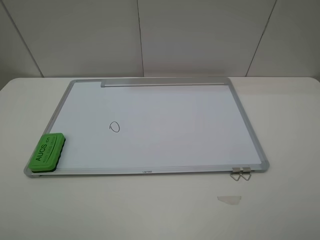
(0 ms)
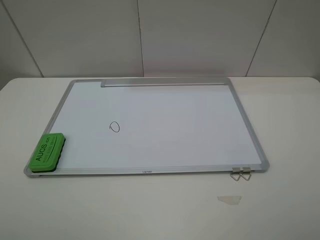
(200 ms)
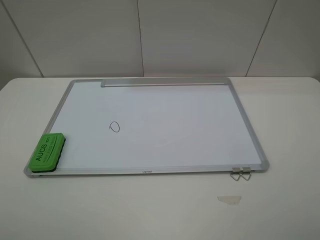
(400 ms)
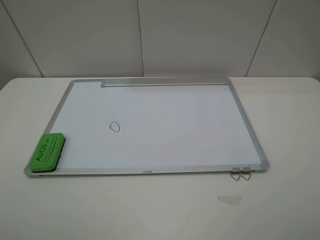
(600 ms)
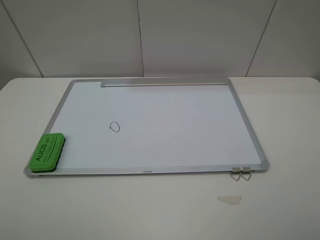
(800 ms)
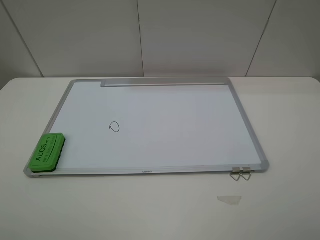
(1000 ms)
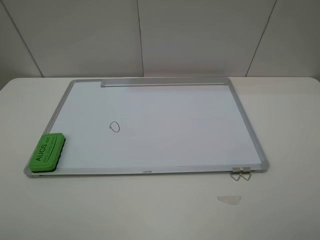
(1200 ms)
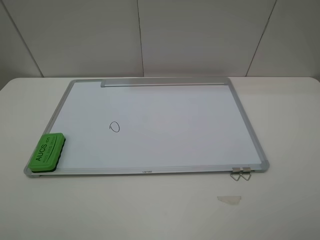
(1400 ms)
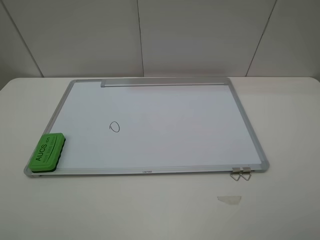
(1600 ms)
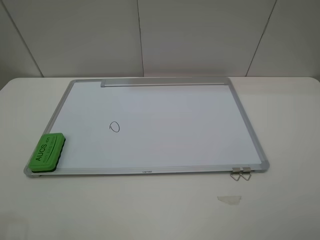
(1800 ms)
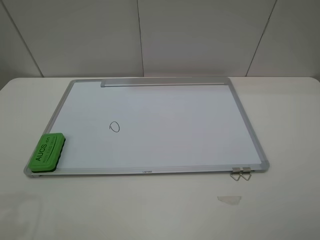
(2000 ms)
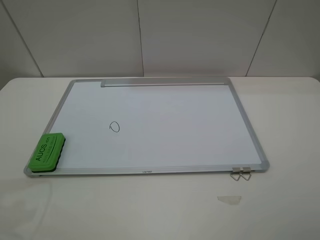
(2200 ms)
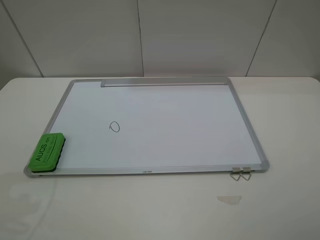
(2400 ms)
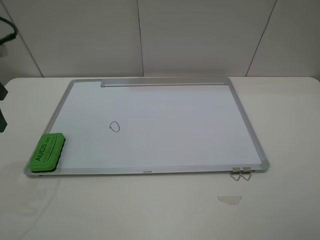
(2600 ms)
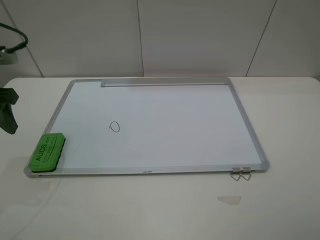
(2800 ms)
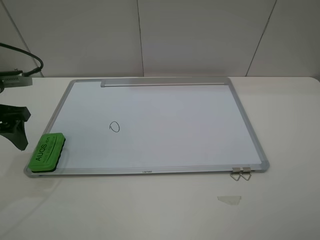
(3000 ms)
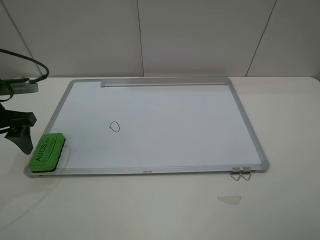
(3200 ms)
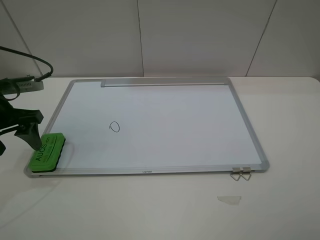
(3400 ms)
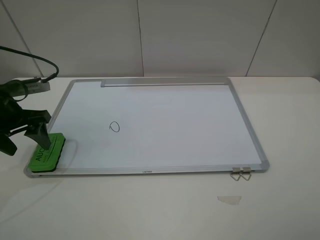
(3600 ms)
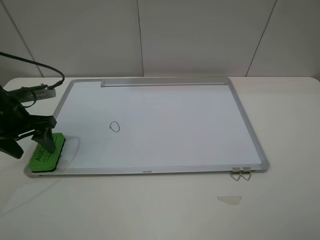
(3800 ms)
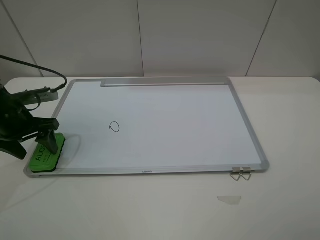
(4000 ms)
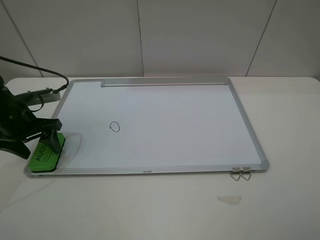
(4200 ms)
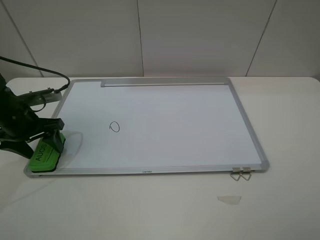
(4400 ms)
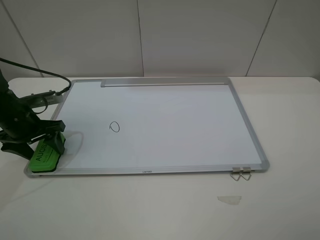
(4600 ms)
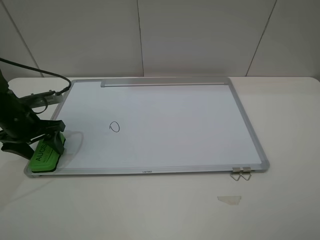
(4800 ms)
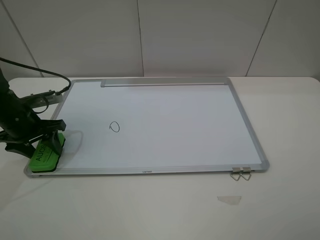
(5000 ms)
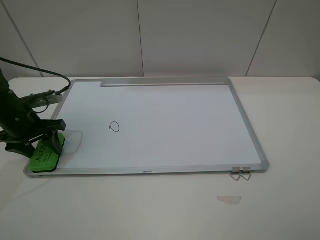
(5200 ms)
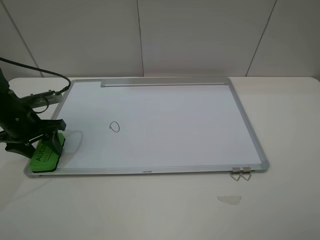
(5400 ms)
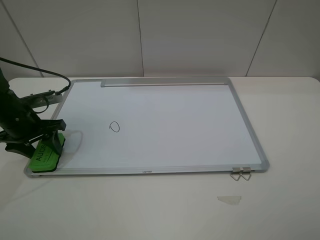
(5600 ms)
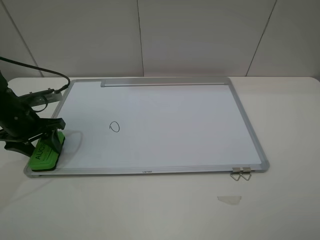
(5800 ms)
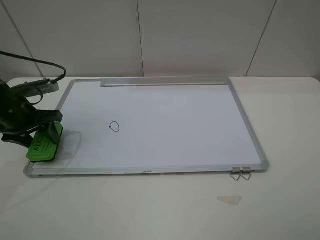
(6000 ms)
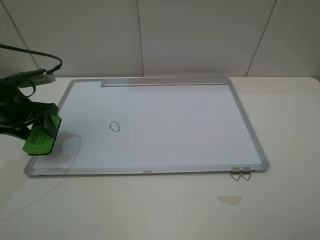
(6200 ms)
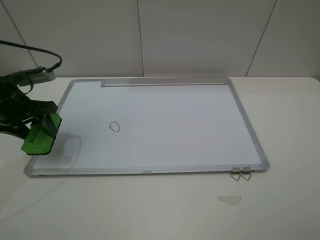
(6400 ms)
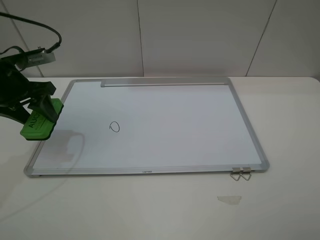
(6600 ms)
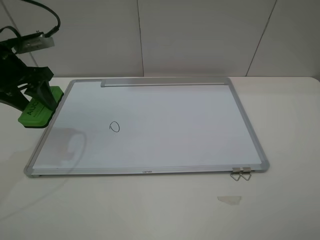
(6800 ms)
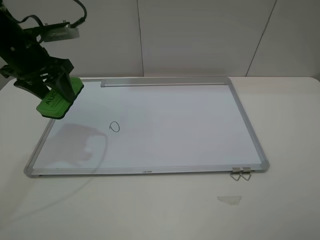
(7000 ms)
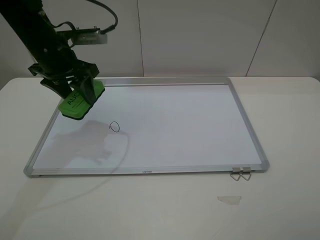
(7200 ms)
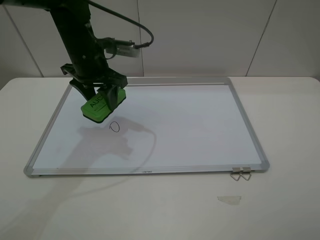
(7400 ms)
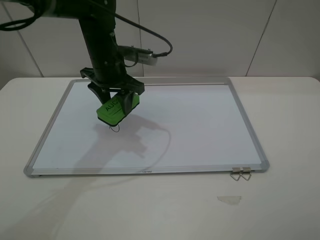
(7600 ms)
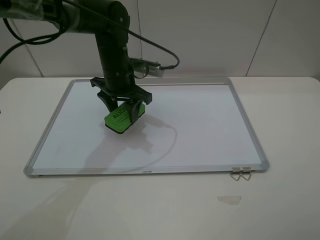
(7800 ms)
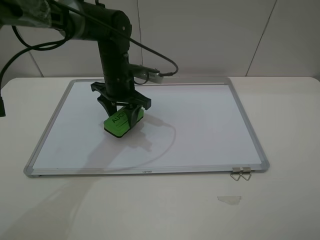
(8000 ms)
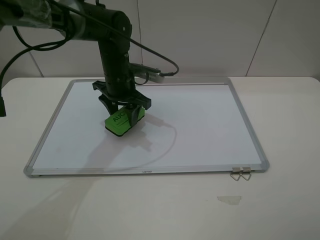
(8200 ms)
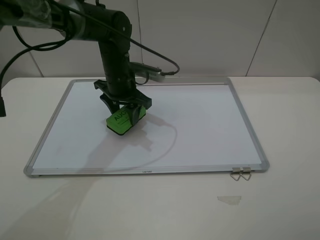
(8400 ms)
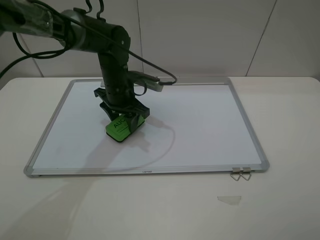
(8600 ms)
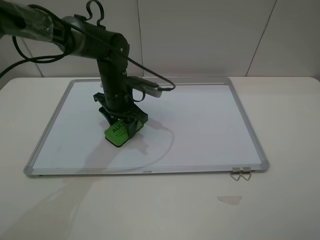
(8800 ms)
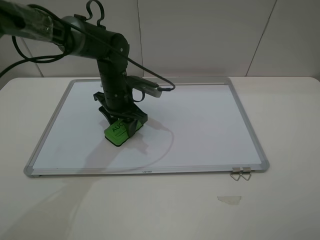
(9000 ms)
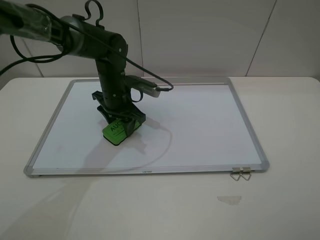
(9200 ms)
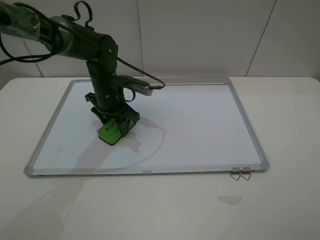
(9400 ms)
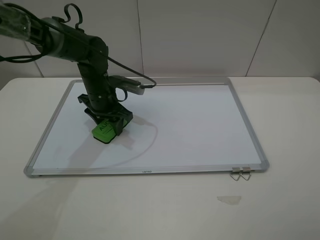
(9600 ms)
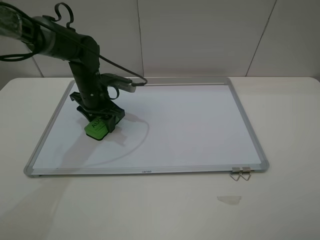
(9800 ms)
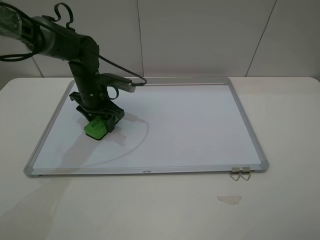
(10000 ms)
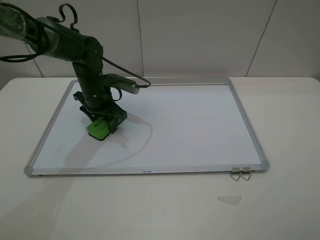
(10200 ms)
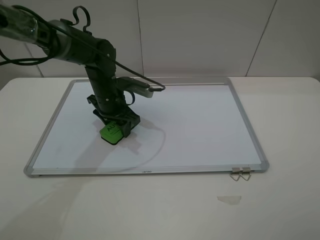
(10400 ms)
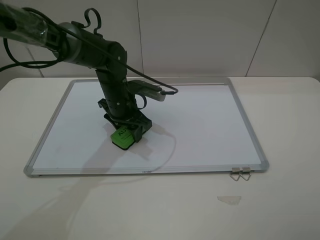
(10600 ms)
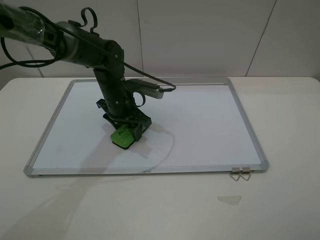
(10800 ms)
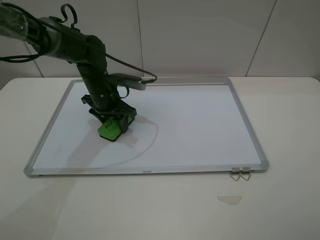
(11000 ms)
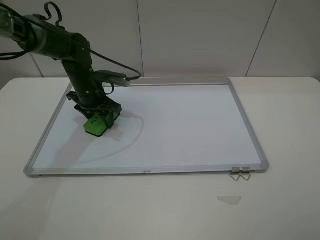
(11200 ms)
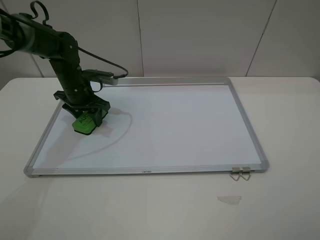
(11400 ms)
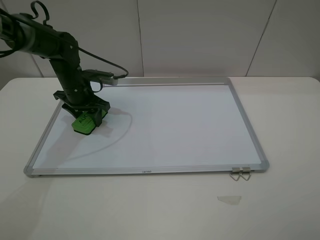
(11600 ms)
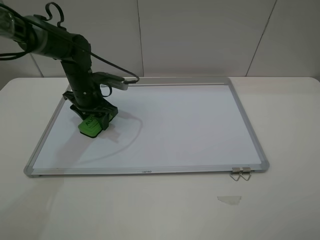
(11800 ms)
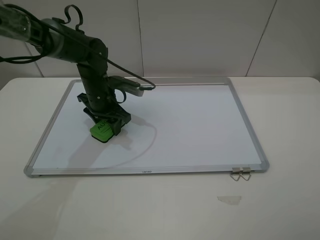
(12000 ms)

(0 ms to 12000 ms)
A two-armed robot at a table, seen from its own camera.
Step, 0 ms - 5000 ms: Grasp the eraser with the left gripper.
1600 ms - 3000 ms: The left gripper goes roughly 25 cm forward and downward, and opens its fingers.
3000 ms - 4400 ms: The left gripper heads downward, covering some 10 cm.
4400 ms - 6000 ms: The left gripper closes its fingers.
6000 ms - 7600 ms: The left gripper goes roughly 20 cm to the right.
7600 ms - 9000 ms: The left gripper travels downward by approximately 10 cm.
10400 ms - 12000 ms: The left gripper travels to the left and back again, approximately 10 cm each way.

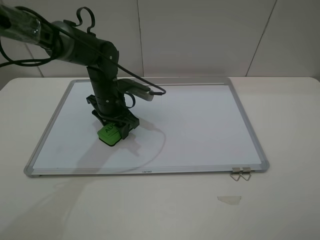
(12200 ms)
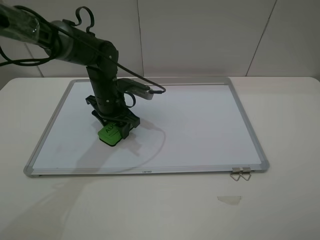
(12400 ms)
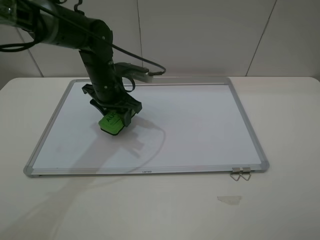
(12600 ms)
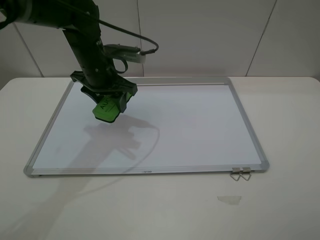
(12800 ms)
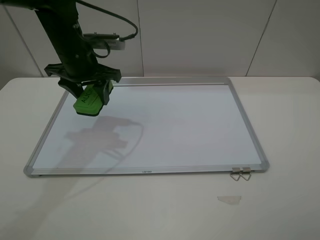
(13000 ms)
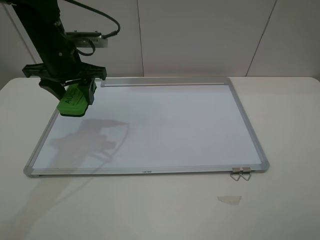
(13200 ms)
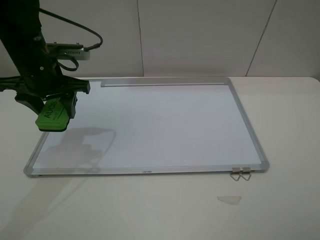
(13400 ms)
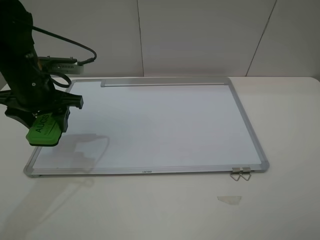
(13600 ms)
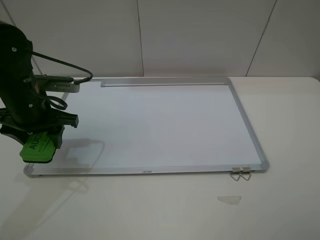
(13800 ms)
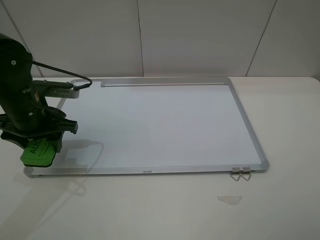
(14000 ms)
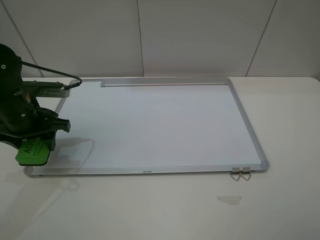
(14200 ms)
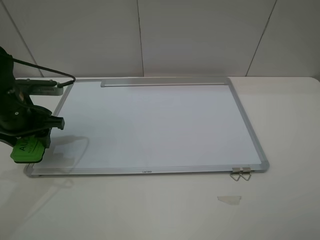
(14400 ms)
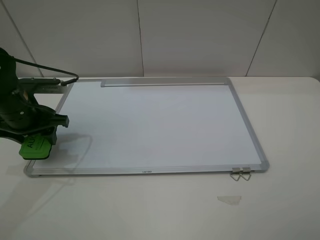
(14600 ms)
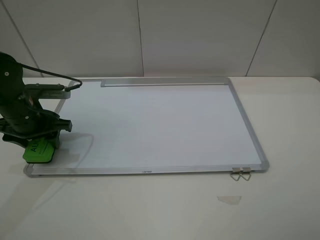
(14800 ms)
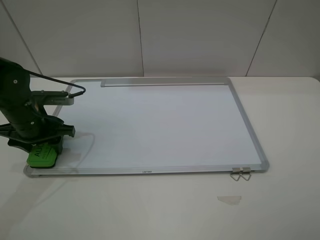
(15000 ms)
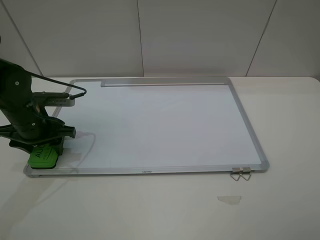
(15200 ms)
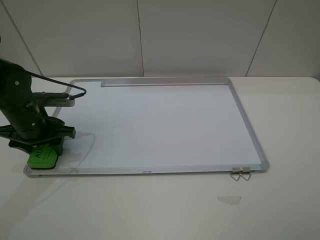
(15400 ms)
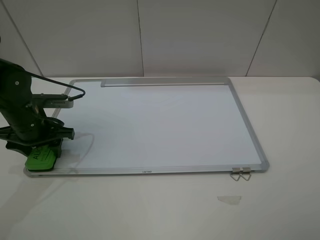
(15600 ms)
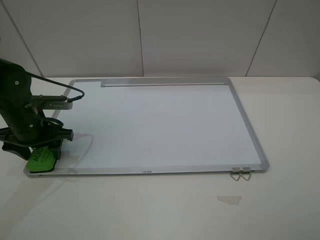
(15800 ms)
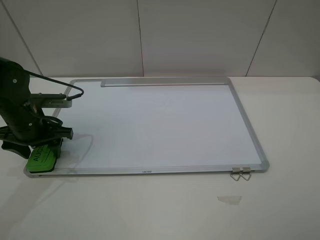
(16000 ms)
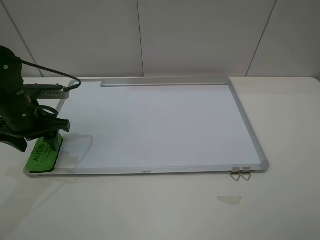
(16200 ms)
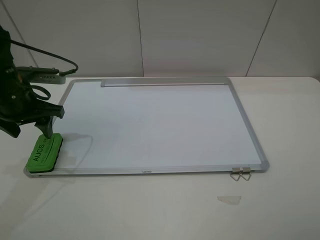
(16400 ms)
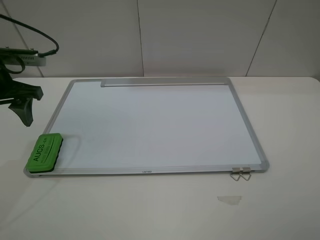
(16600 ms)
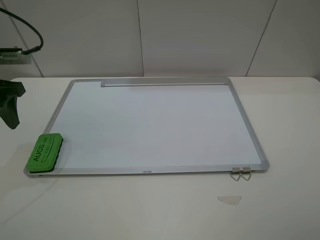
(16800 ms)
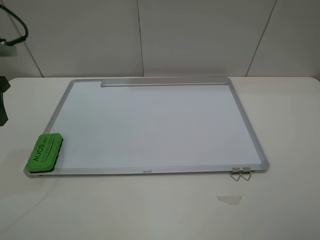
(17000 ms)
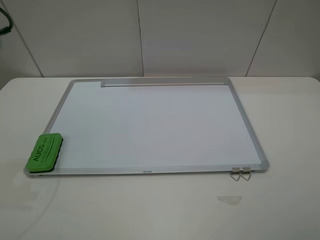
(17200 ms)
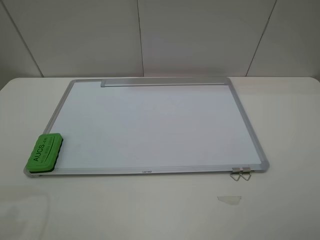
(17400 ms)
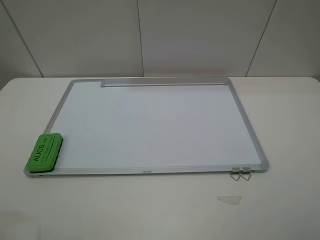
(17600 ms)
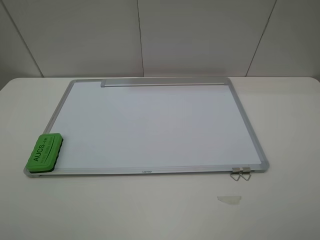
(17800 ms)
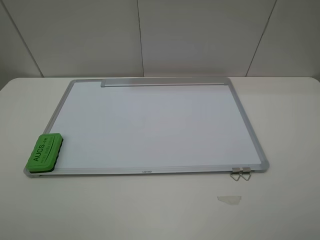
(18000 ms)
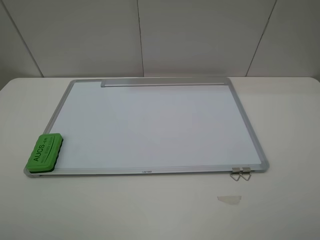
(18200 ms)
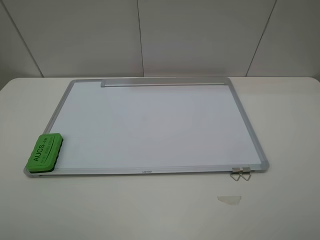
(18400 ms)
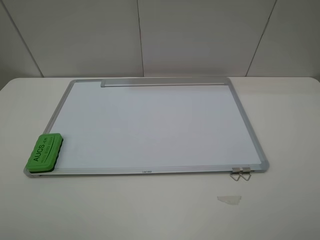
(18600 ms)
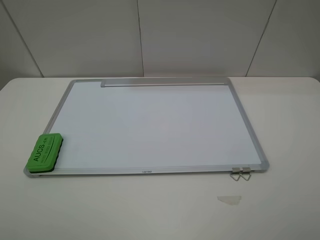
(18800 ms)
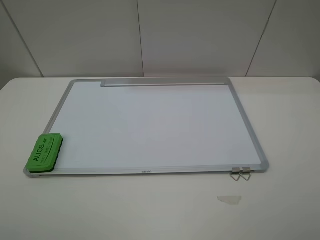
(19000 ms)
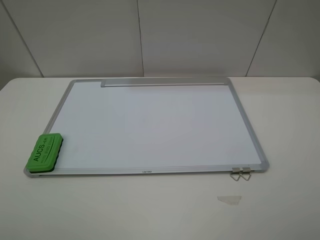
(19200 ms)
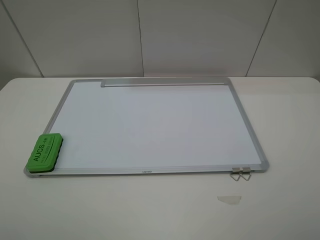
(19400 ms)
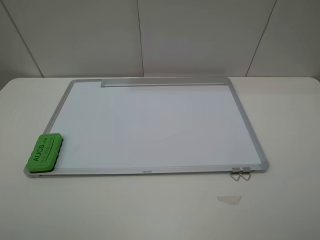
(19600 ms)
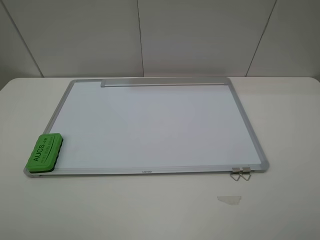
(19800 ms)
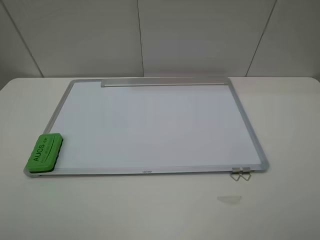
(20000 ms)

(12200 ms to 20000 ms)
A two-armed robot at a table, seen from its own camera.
Step, 12400 ms - 16000 ms: Place the eraser with the left gripper.
12200 ms - 13800 ms: The left gripper is displaced to the left, backward and upward by roughly 15 cm.
13800 ms - 15400 ms: The left gripper goes about 5 cm downward.
15400 ms - 16800 ms: The left gripper is displaced upward and to the left by approximately 15 cm, and opens up.
16800 ms - 18400 ms: The left gripper travels backward by about 25 cm.

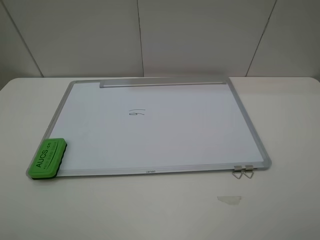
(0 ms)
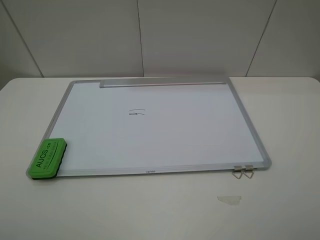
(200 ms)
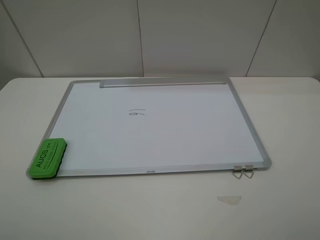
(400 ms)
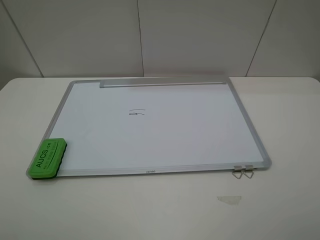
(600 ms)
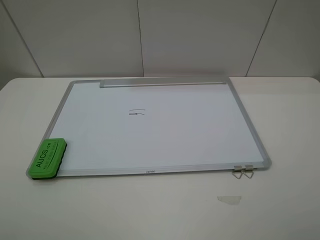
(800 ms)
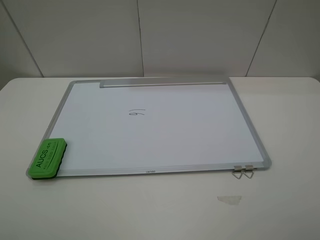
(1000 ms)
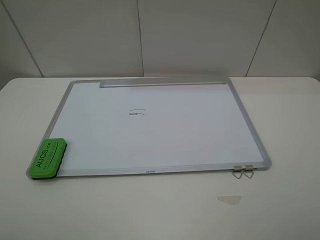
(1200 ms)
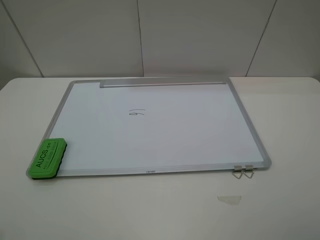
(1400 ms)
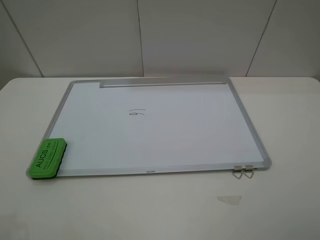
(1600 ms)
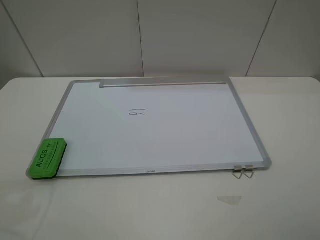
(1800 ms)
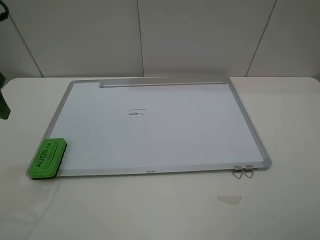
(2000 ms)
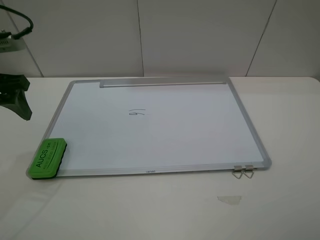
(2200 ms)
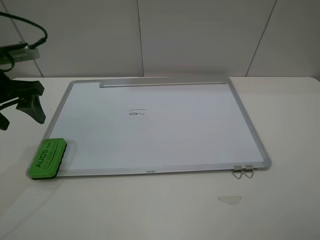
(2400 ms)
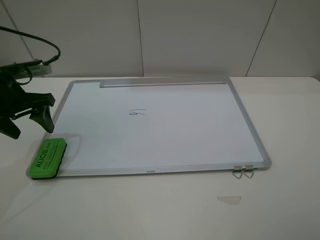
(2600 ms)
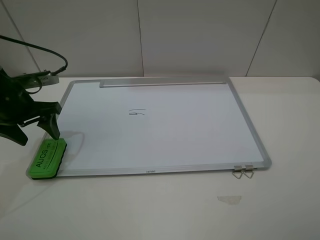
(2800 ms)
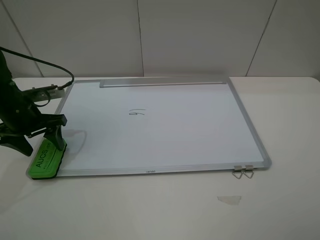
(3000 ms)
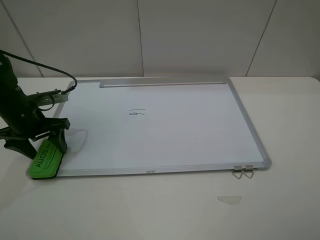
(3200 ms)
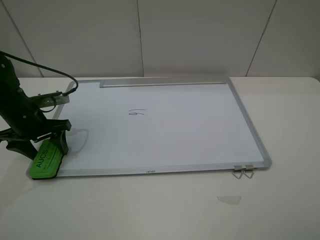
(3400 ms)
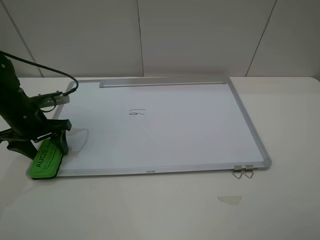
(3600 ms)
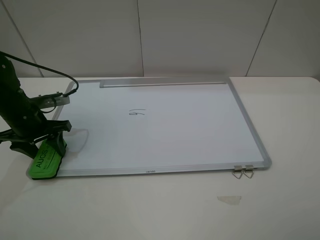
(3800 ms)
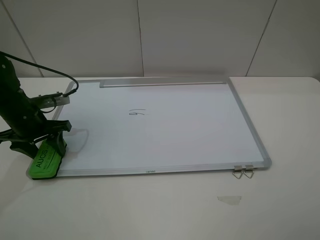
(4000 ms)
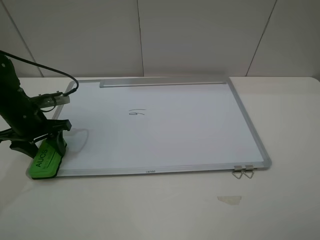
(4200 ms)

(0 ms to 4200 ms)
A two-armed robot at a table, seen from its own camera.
Step, 0 ms - 4000 ms: Grasp the eraser with the left gripper.
1400 ms - 2800 ms: The left gripper travels downward and forward by some 30 cm.
2800 ms - 4200 ms: The left gripper closes up.
